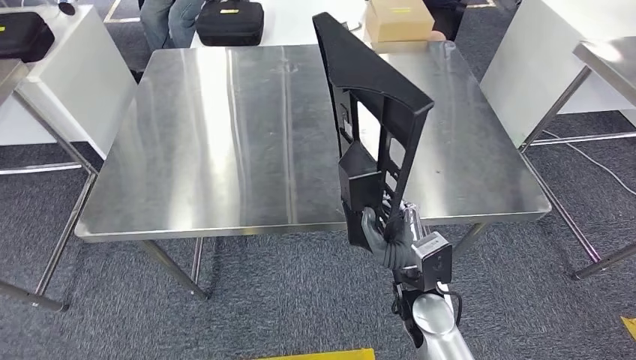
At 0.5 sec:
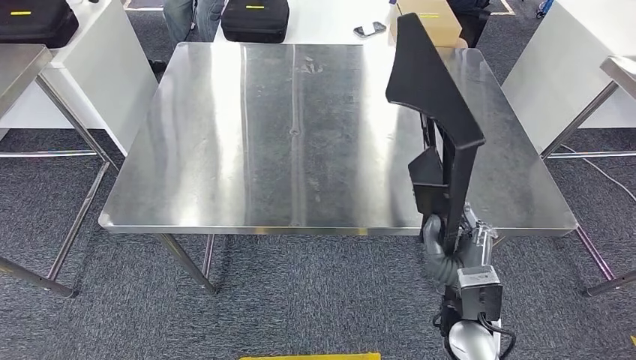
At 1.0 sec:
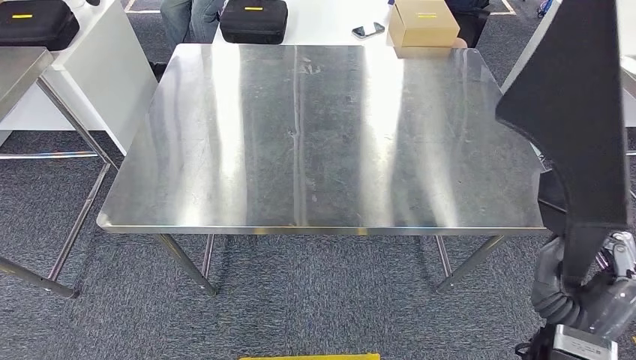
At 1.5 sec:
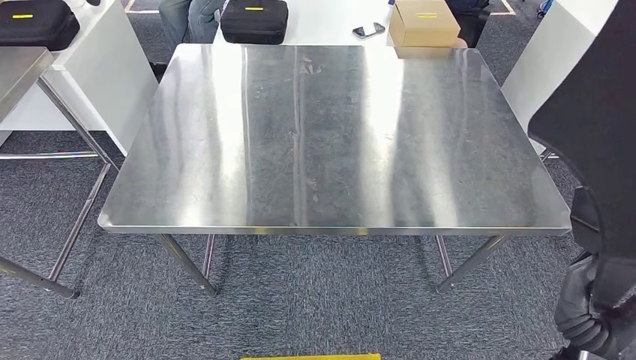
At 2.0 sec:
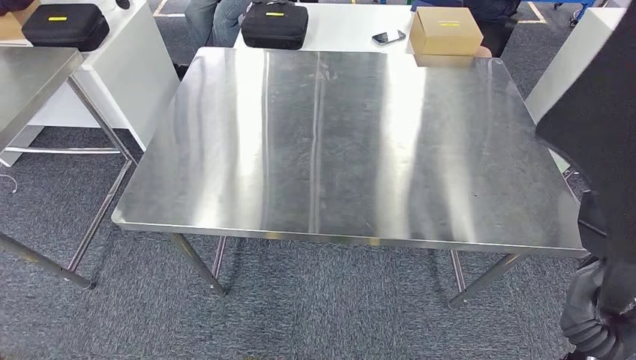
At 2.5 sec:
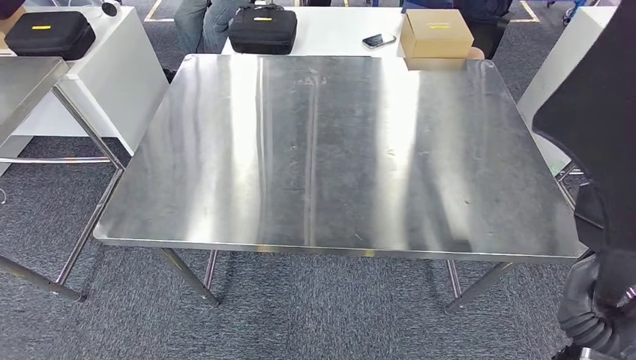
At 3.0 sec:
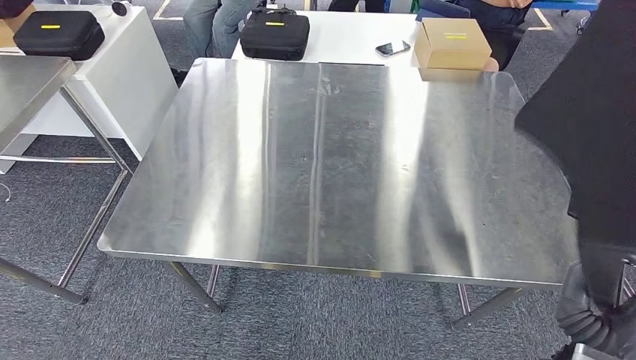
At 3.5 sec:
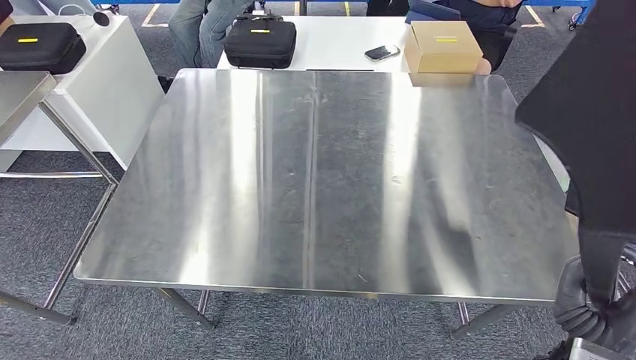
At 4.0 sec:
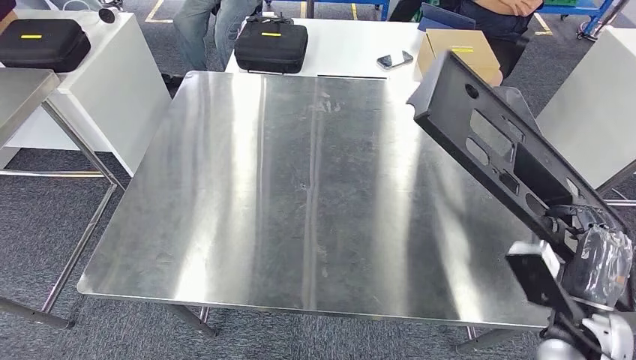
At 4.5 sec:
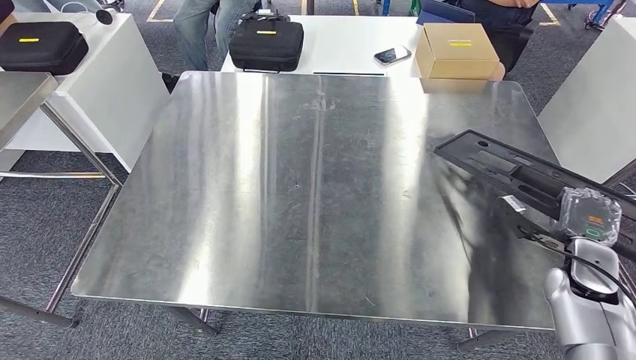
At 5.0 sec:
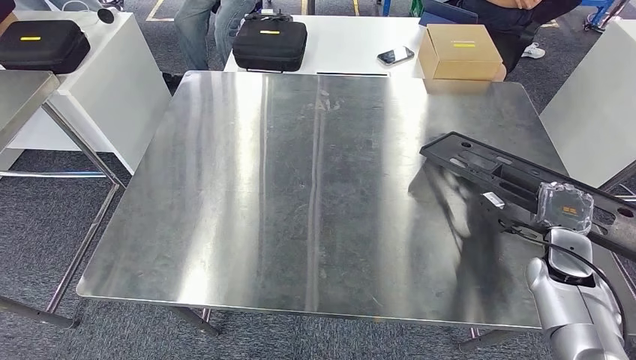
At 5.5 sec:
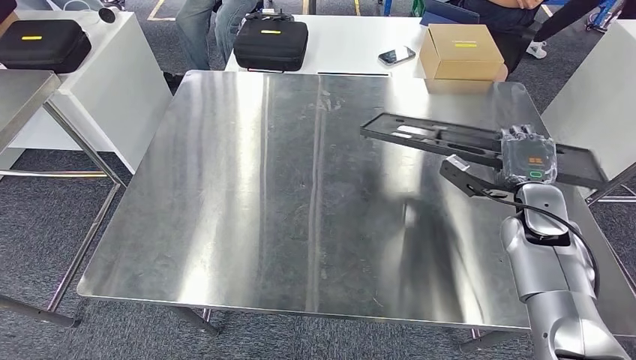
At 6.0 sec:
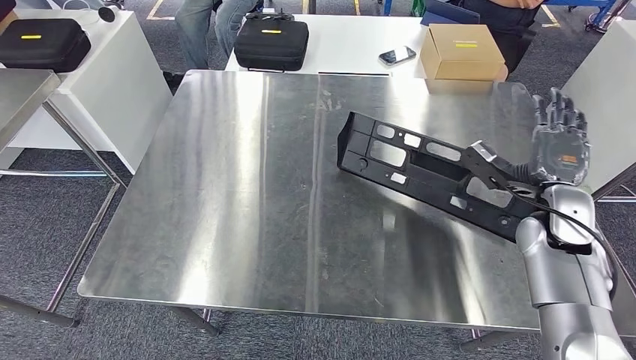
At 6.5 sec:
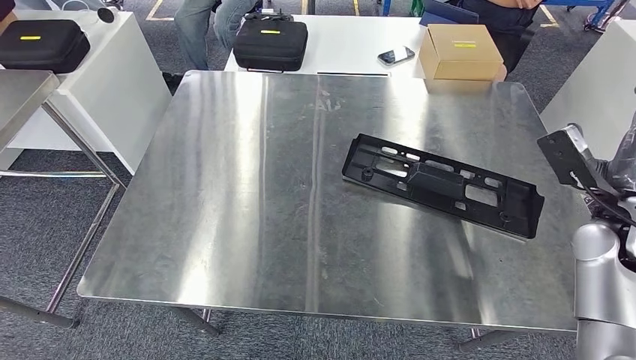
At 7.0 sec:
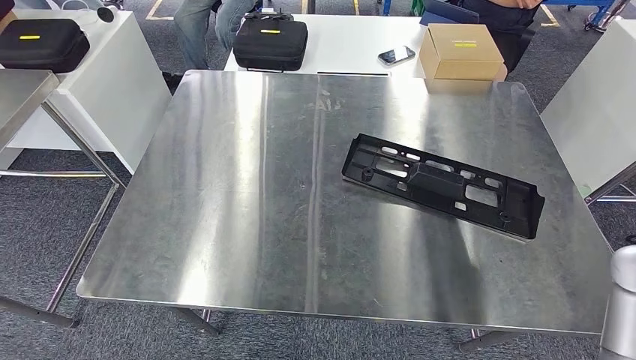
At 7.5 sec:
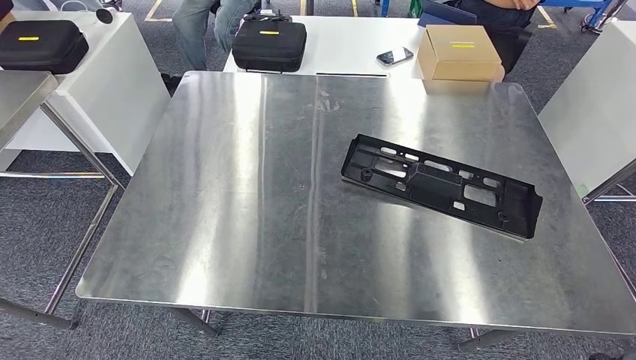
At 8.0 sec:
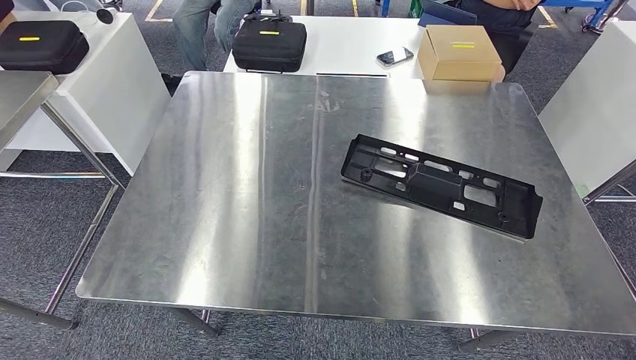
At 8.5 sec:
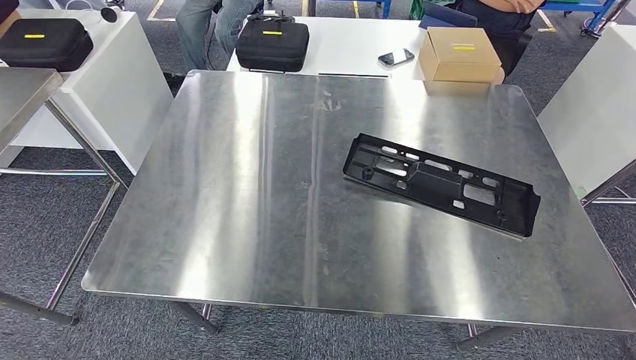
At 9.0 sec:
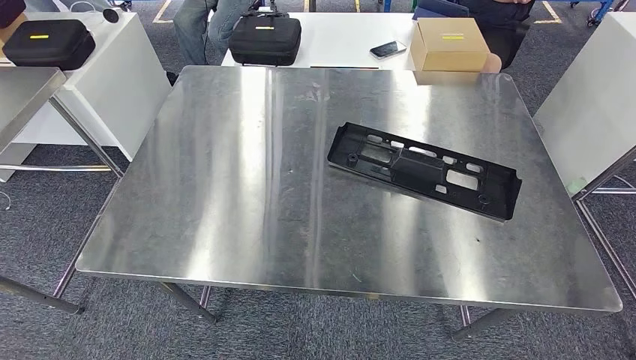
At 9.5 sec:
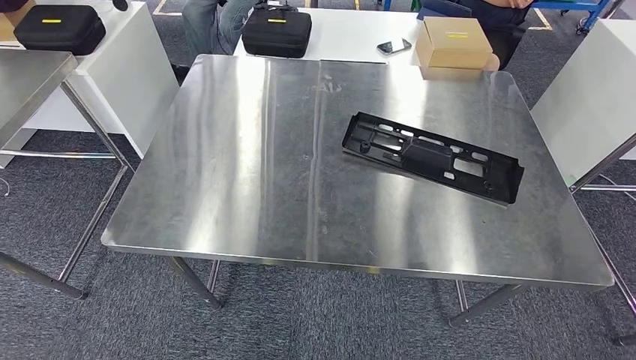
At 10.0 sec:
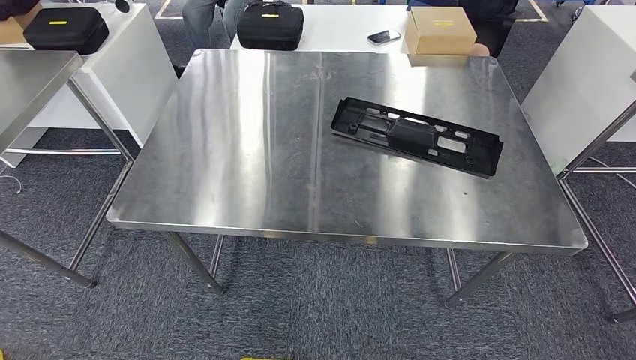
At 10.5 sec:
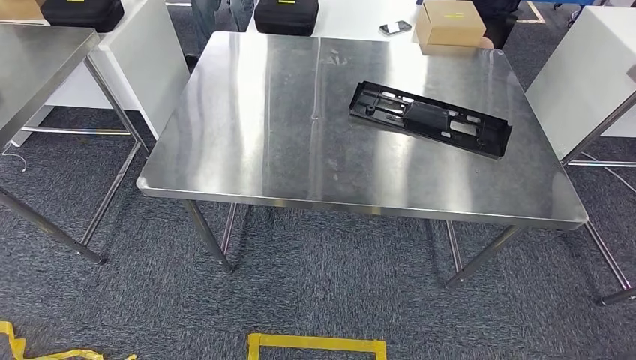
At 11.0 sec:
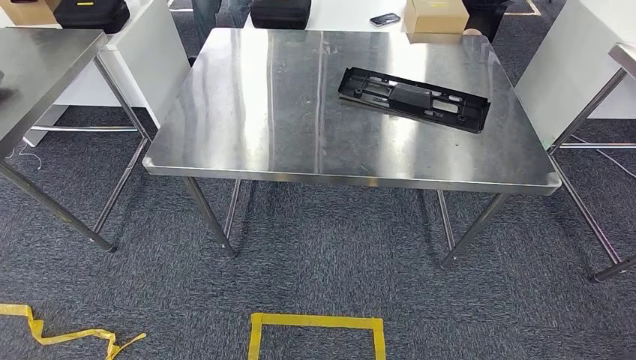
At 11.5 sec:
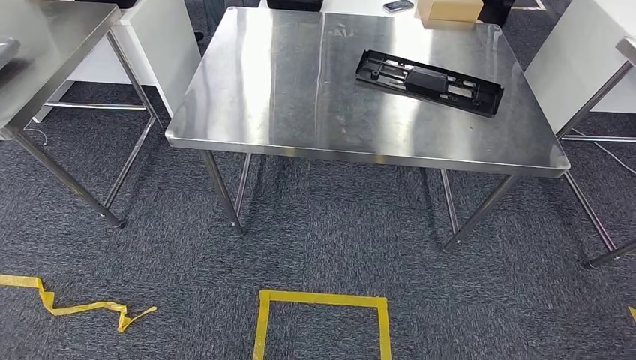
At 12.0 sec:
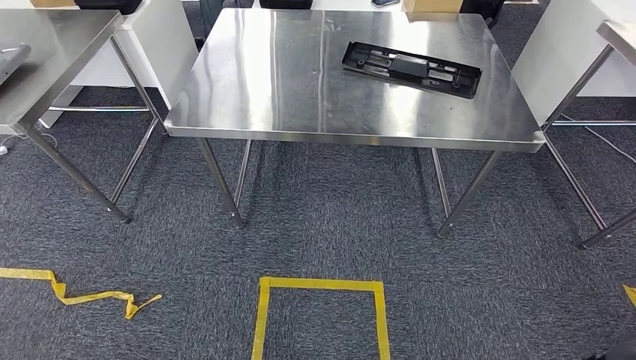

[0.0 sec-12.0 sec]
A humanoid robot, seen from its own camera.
Step, 0.0 sec to 6.0 sec: Insert the large material into the corresponding slot on the workbench.
6.0 sec to 8.0 sec: The right hand travels backward by roughly 25 cm.

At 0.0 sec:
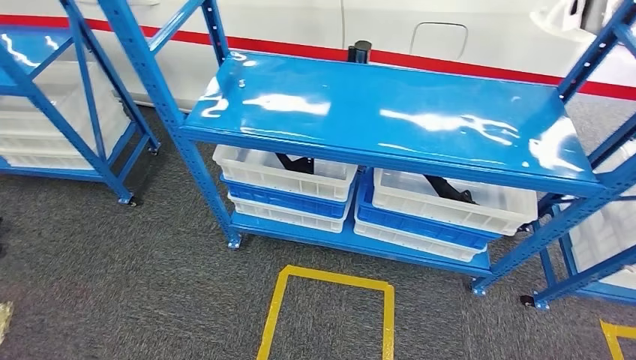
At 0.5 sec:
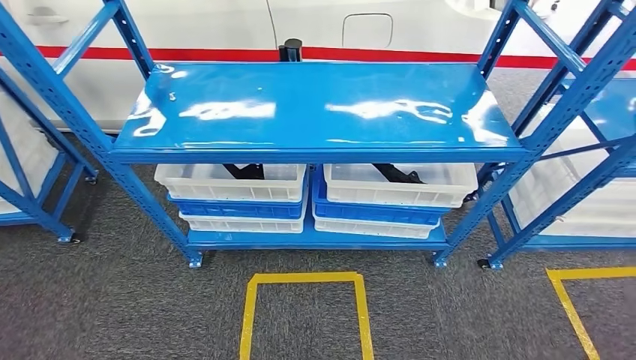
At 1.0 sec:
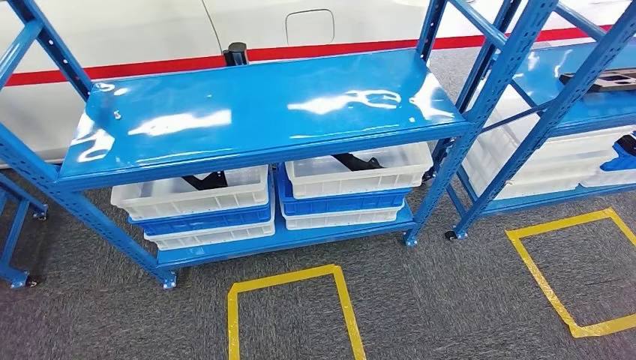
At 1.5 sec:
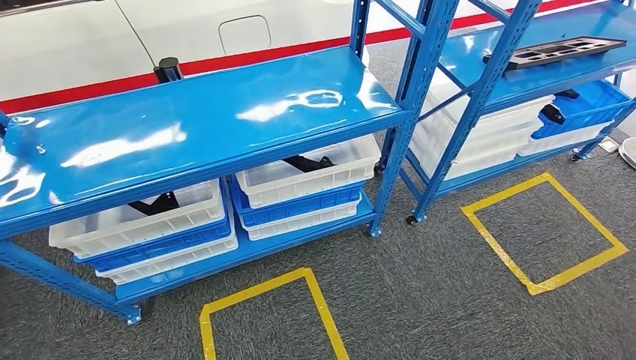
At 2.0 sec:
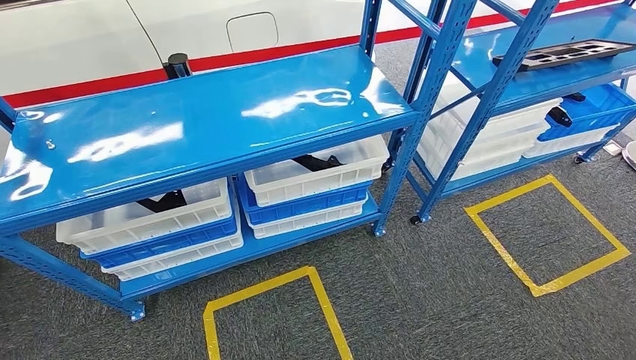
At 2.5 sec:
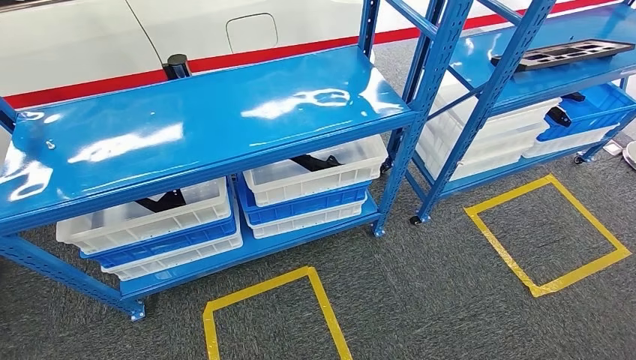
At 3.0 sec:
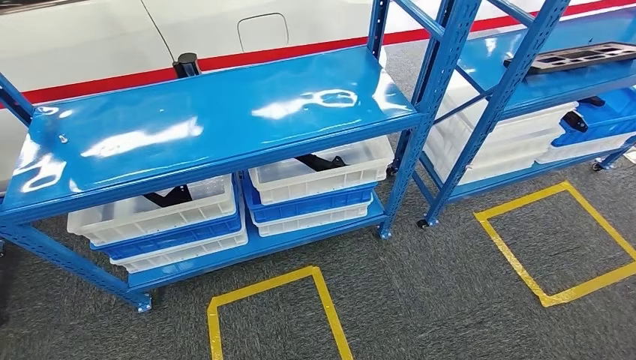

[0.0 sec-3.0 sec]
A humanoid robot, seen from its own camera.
Step, 0.0 sec to 3.0 sec: Move to the initial position of the shelf.
